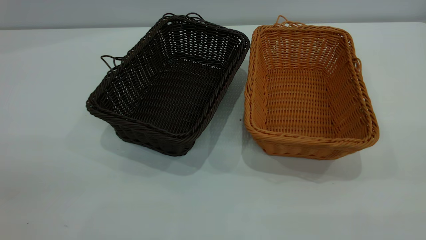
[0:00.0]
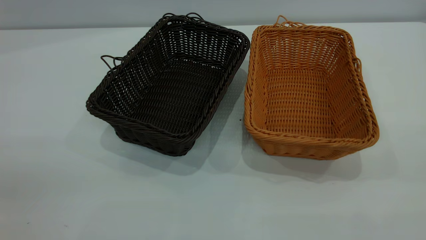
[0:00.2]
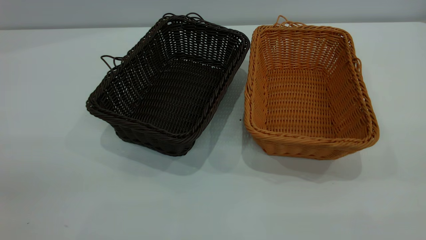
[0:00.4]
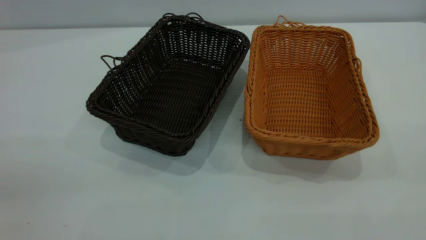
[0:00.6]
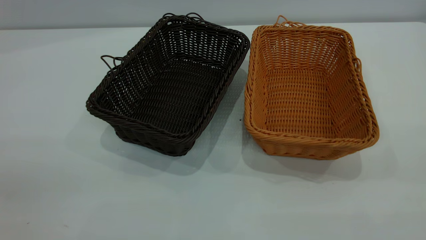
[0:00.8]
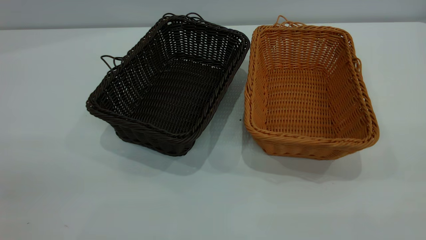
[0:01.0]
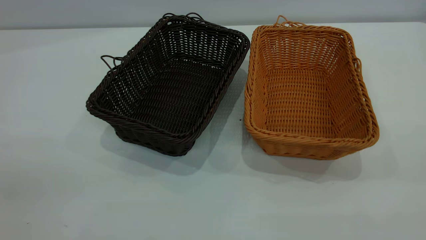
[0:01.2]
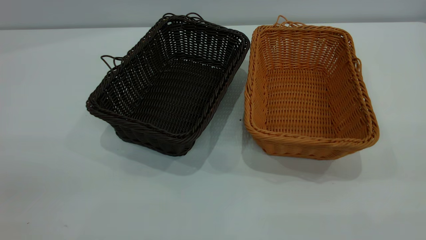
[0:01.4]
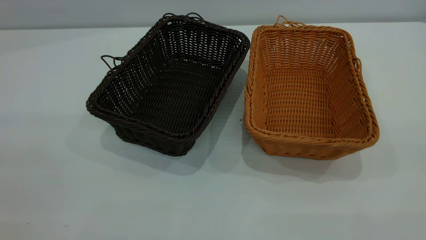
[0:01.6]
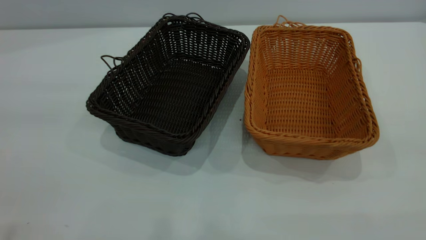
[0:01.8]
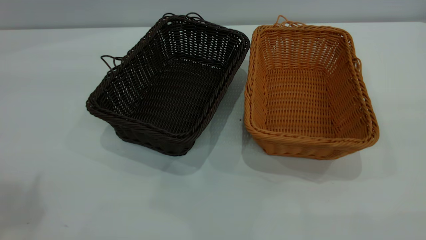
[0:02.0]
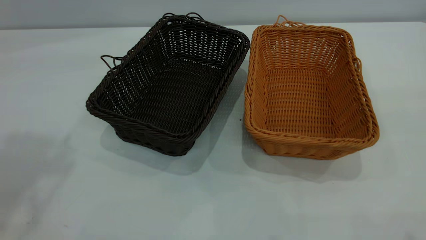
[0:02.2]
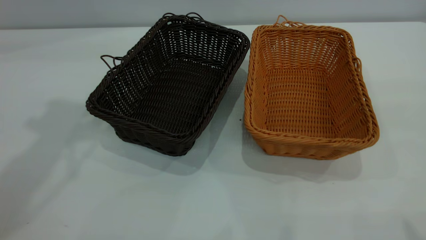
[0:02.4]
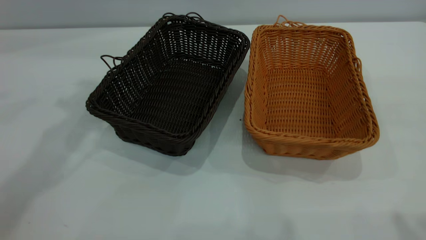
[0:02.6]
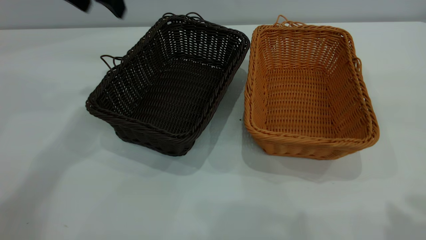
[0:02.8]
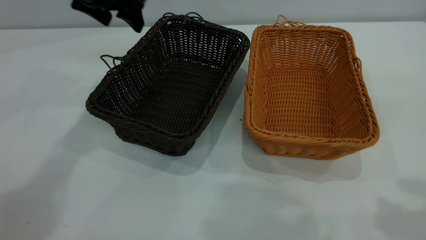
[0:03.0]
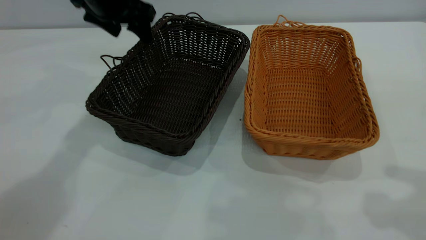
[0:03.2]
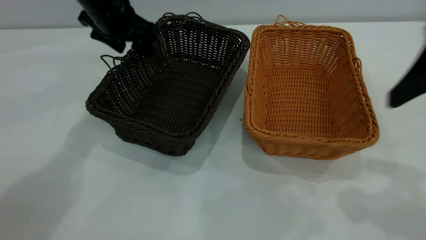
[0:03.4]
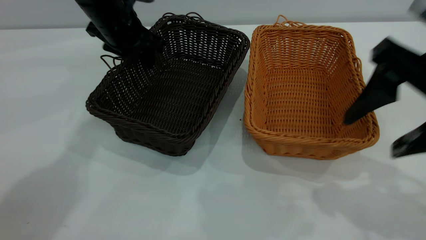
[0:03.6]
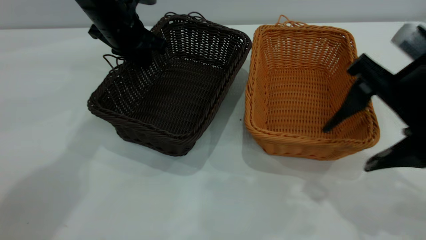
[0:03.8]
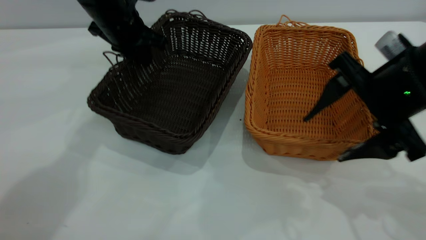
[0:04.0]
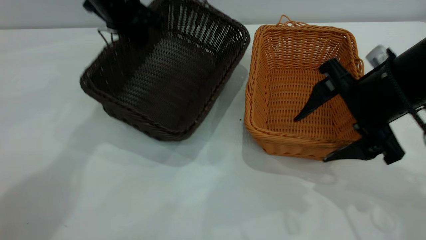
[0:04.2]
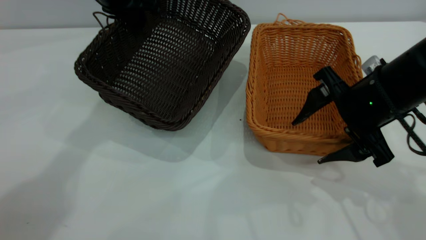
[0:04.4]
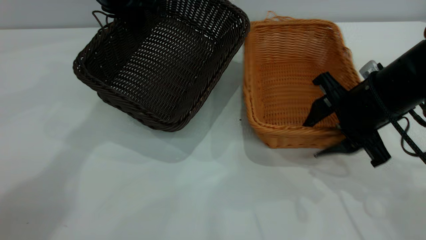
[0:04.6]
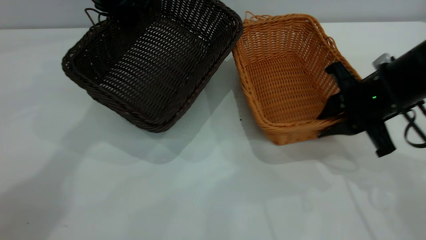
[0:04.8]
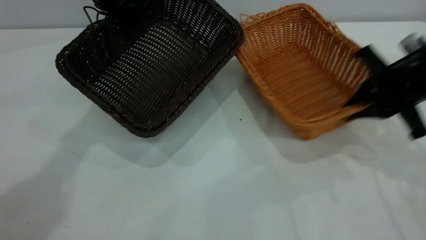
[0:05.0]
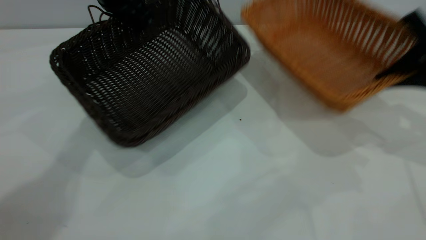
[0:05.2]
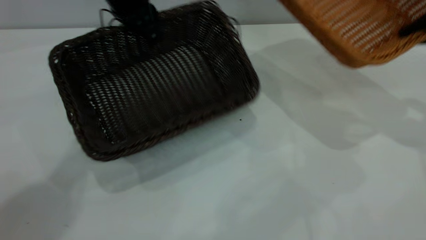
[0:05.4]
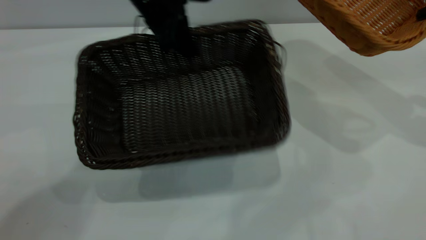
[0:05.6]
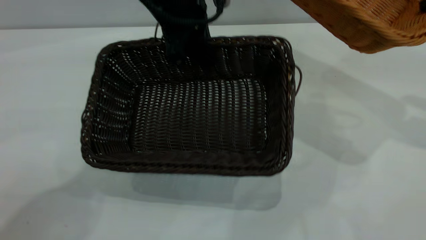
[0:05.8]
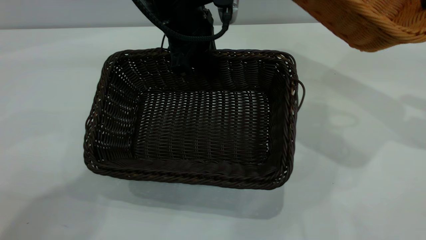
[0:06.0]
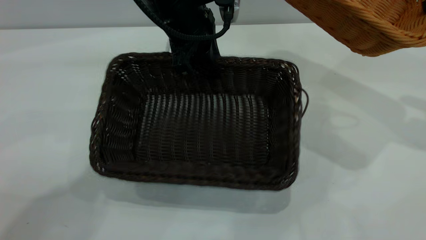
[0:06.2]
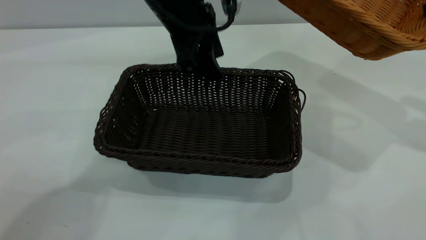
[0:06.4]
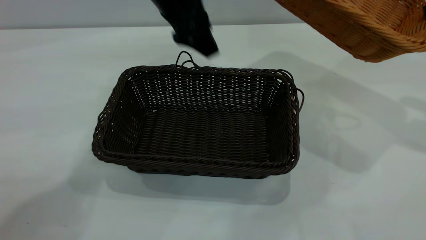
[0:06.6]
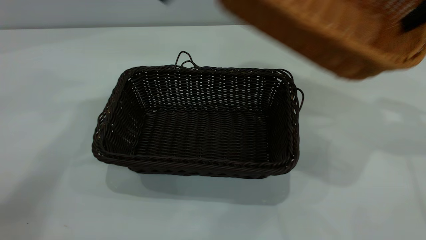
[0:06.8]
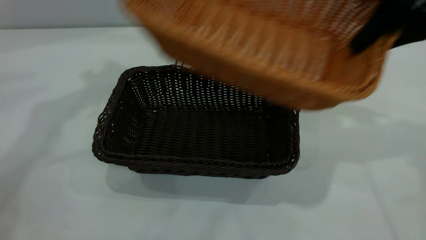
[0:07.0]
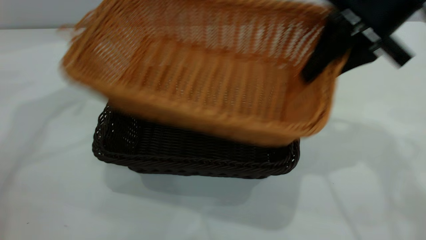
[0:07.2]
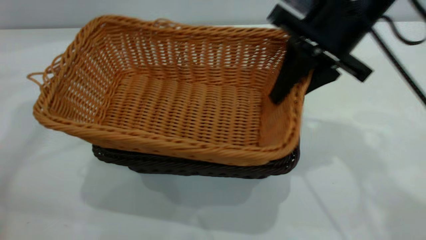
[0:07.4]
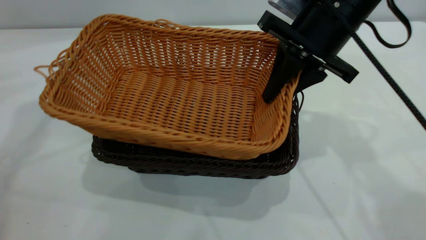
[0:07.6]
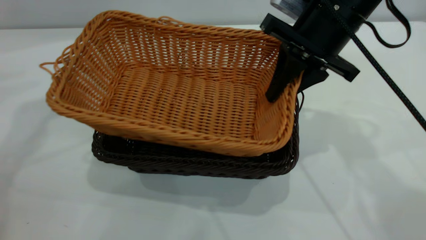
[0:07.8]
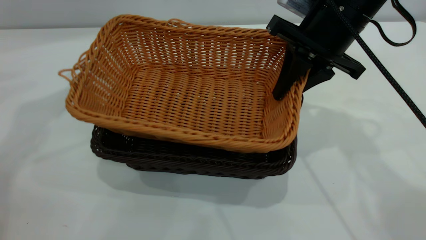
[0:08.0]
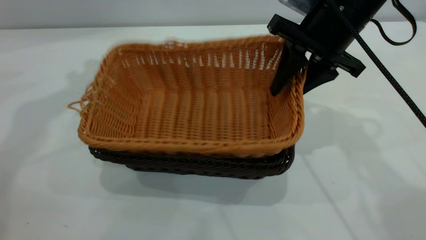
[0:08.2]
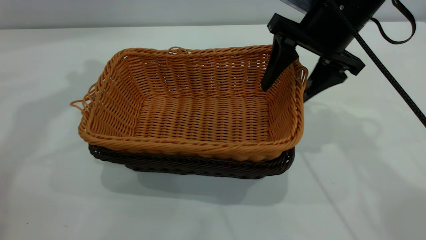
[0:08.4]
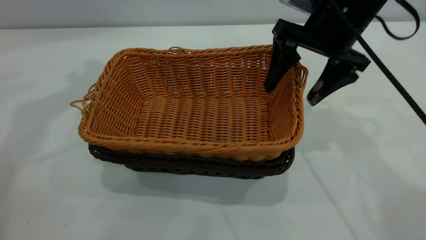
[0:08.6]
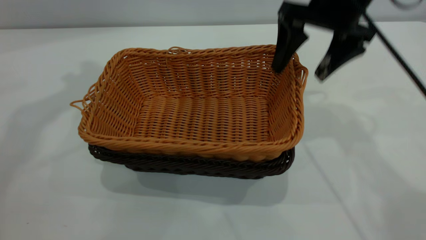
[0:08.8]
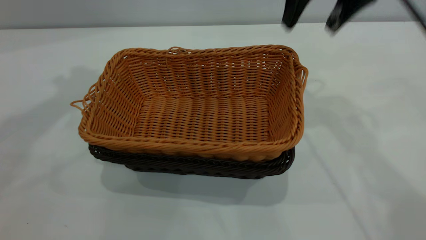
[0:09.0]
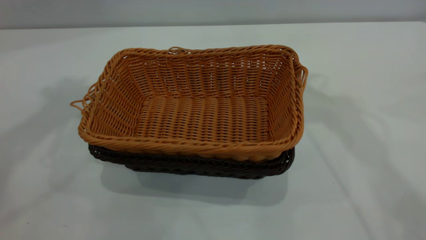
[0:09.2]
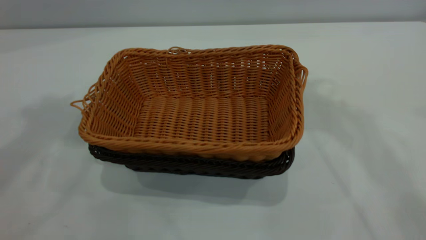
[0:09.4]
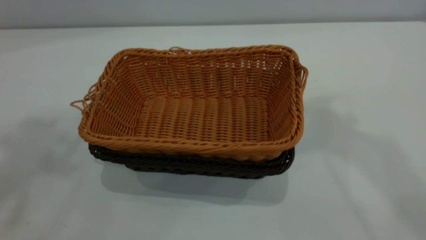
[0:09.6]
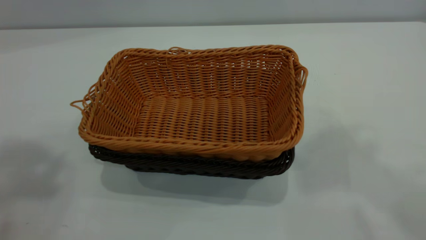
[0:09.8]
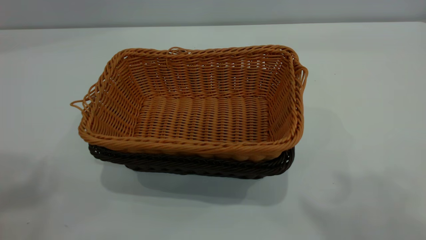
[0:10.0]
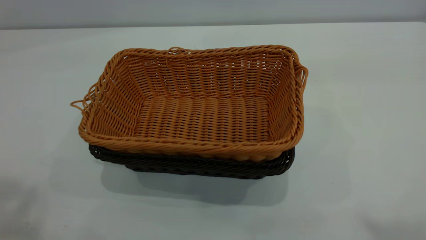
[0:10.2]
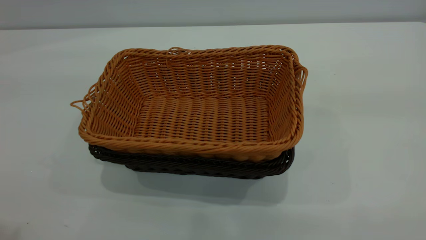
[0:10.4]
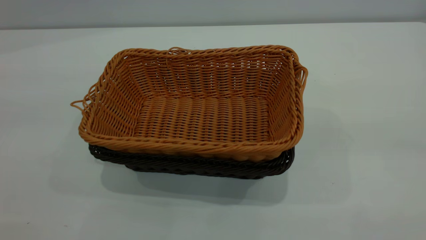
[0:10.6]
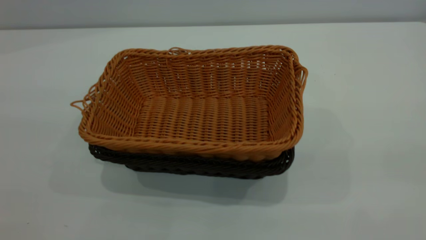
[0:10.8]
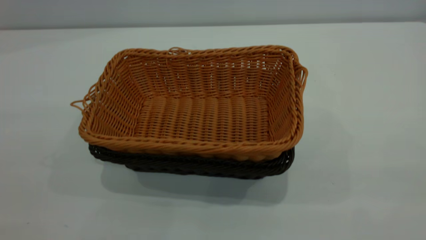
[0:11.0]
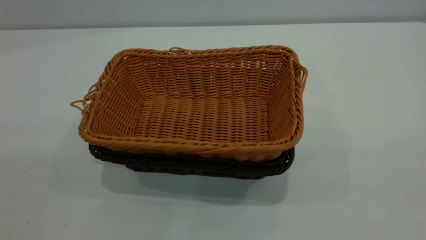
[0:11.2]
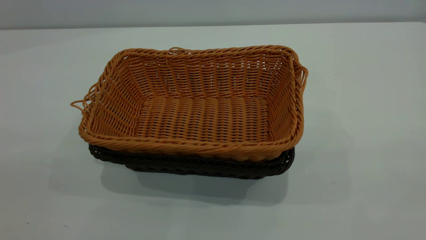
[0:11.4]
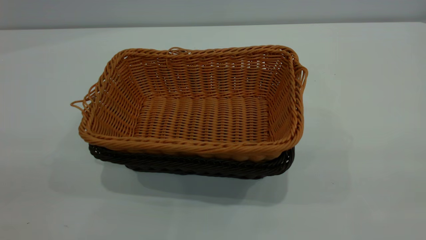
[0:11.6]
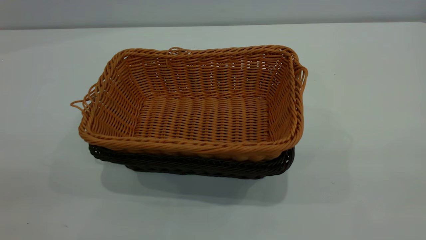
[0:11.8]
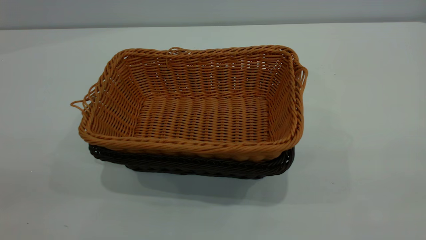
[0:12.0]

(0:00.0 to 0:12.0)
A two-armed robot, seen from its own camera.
Task of the whole recording: the left gripper grasp the black basket and place it in the center of the table, the right gripper grasp the brown basket and place it inside the black one.
Step, 0:02.8 - 0:03.8: Grasp the dark basket with left gripper.
Step, 0:04.0 - 0:04.8: Grasp the light basket with right gripper.
Step, 0:05.0 - 0:06.4: Place the dark basket in the center of the table with left gripper.
Step, 0:06.6 - 0:08.6: Place the light basket on the dark basket with right gripper.
0:01.6 - 0:03.0: The left gripper travels forward and downward by about 50 cm.
0:03.0 - 0:04.4: The left gripper goes downward and returns, some 10 cm each way, and closes; the right gripper travels downward, forward and to the left by approximately 25 cm.
0:04.4 - 0:06.0: The right gripper travels to the right and upward by some 20 cm, and closes; the left gripper moves to the right and backward, some 10 cm.
0:06.0 - 0:07.6: The left gripper is displaced to the left and upward by some 25 cm, and opens up, while the right gripper goes roughly 20 cm to the left.
0:07.6 - 0:09.0: The right gripper goes approximately 10 cm upward and forward, and opens, while the left gripper moves upward, some 10 cm.
0:09.0 - 0:10.4: The right gripper is displaced backward and upward by some 40 cm.
